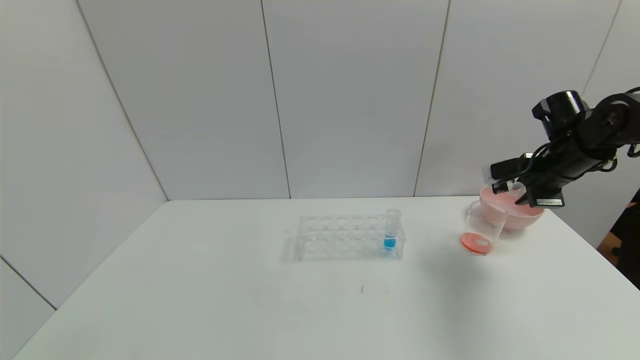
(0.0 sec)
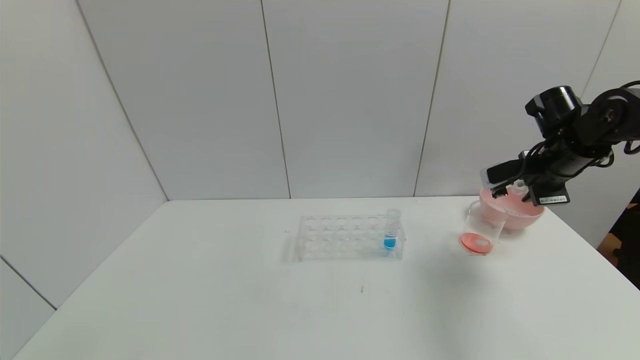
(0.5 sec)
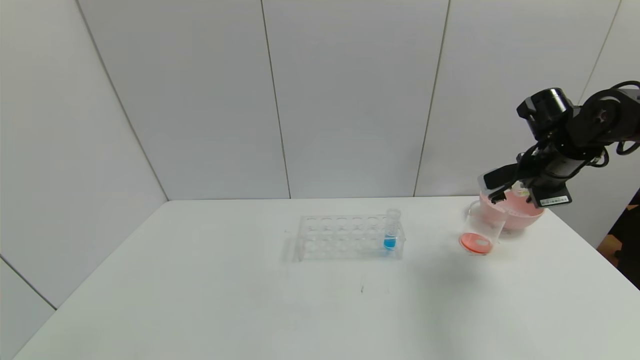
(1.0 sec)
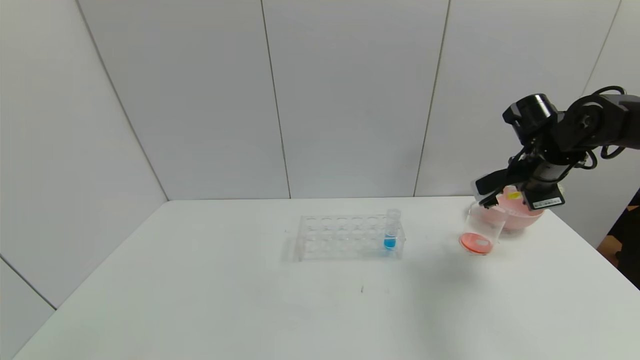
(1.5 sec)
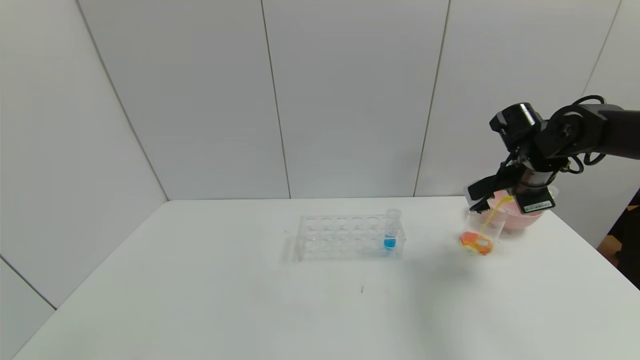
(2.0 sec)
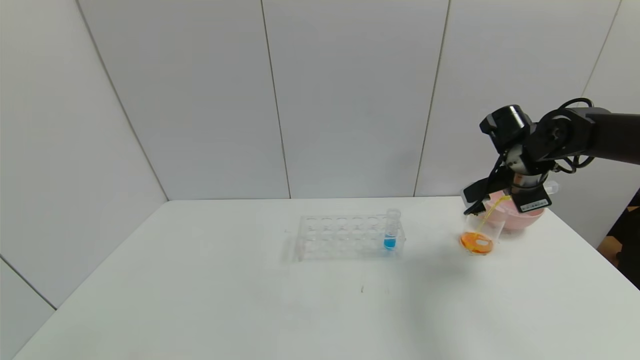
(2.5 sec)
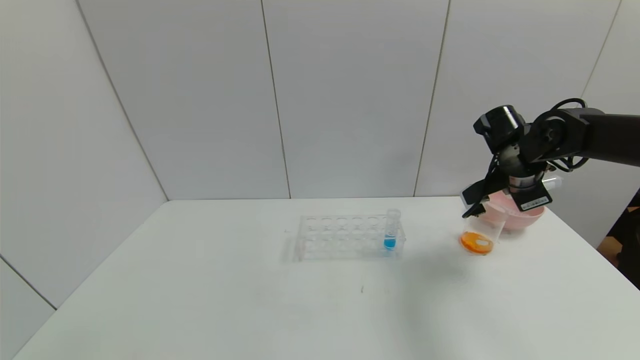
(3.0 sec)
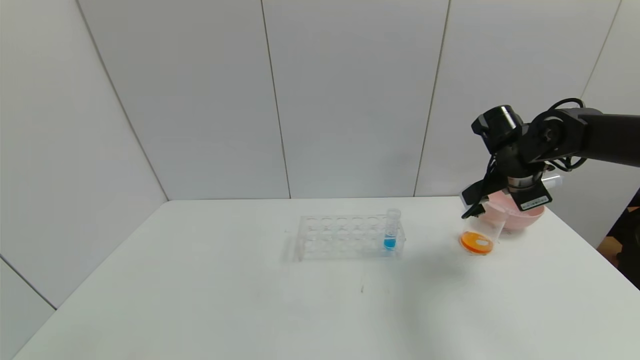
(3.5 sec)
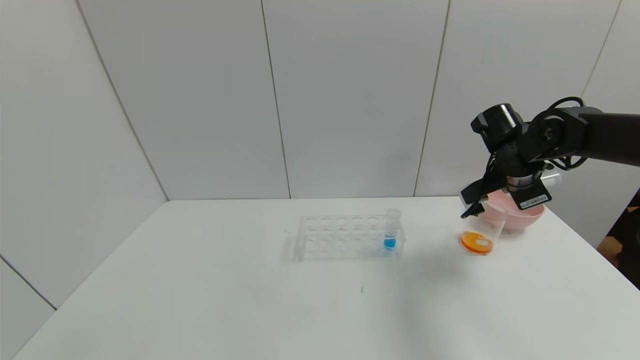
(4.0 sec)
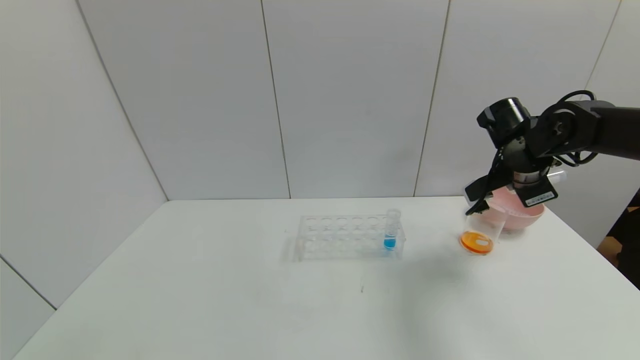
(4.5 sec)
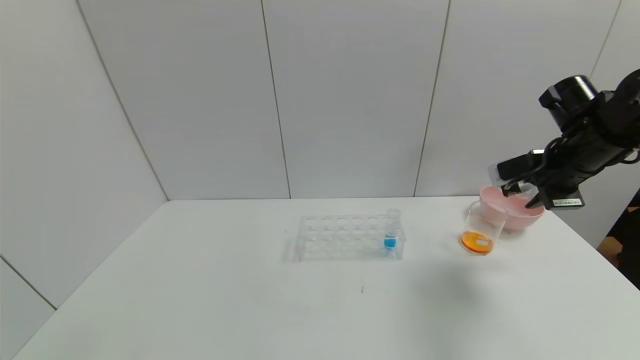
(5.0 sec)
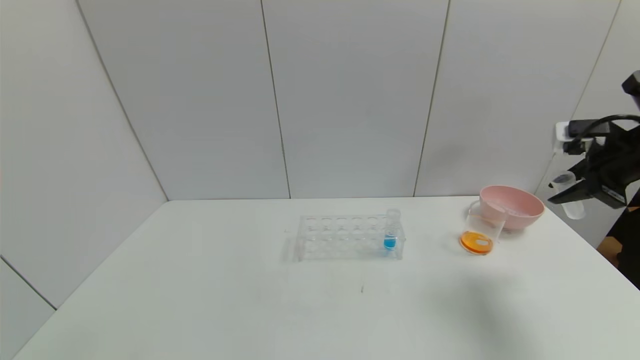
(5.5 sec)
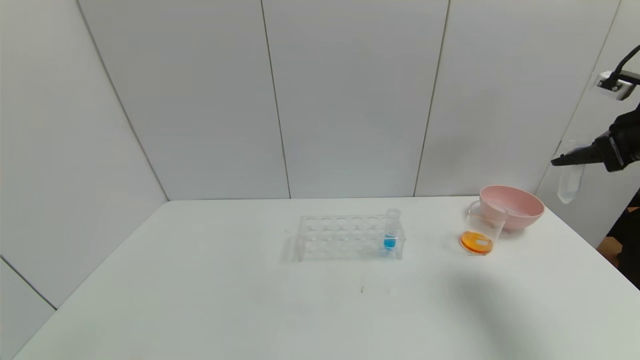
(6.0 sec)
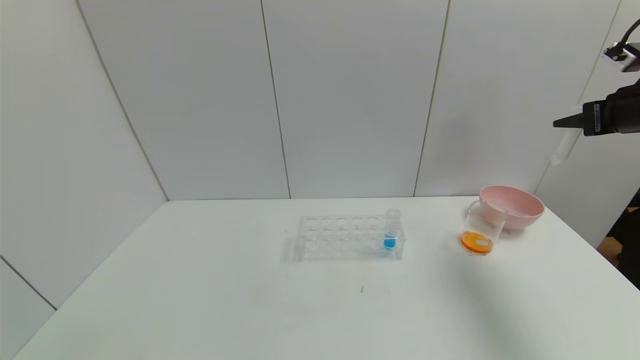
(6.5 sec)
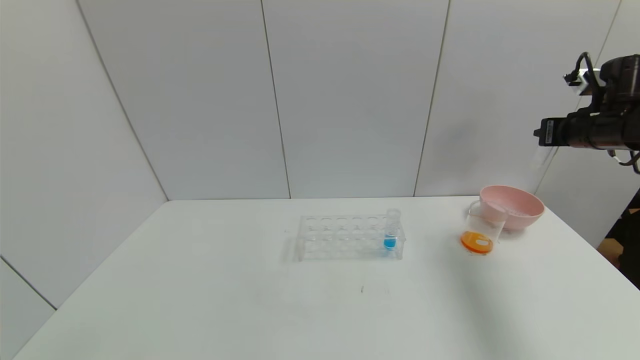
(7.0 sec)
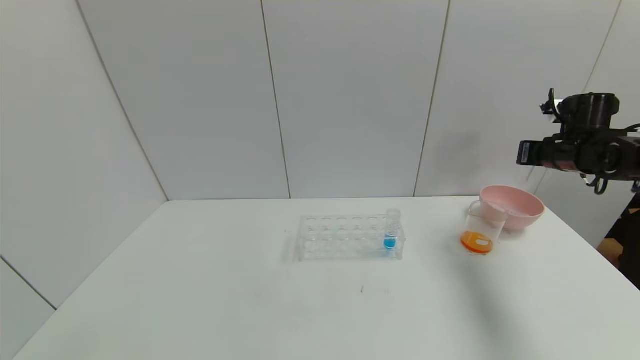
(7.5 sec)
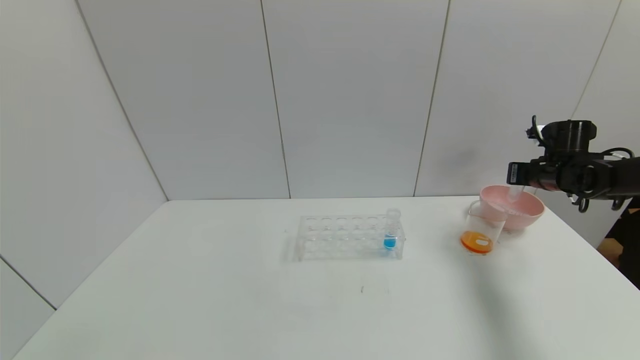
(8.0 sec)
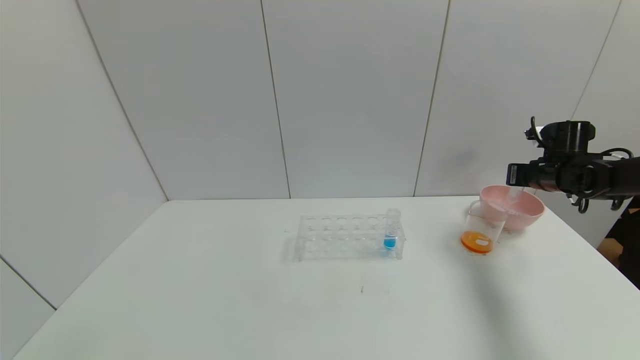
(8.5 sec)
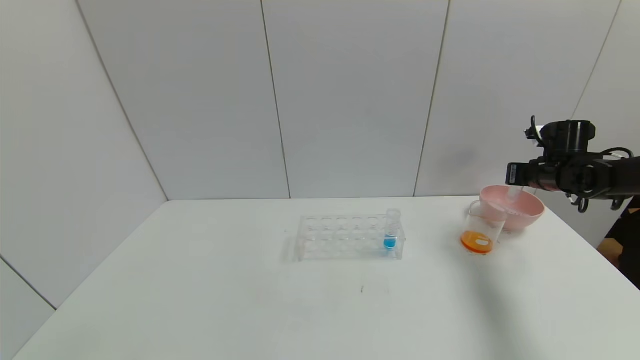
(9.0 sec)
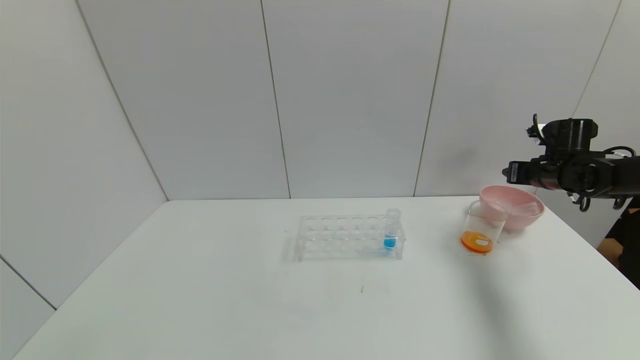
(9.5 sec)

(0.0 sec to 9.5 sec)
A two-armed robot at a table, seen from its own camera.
Task of the whole recording: pick up the test tube with yellow pigment and the test tube with red pigment by grippers and pour them into the beaker.
Step, 0.0 sec - 3.5 sec: Pour the yellow reagent into the graduated cylinder with the right gripper.
0.0 sec - 2.0 sec: The right gripper moves roughly 5 cm.
2.0 sec - 4.0 sec: There are only small adjustments of the grippers.
4.0 sec - 5.5 sec: The right gripper is displaced to the right, backward and upward by some 15 cm.
5.5 sec - 7.5 sec: The right gripper shifts some 15 cm forward and downward.
7.5 sec - 9.5 sec: The right gripper opens its fingers.

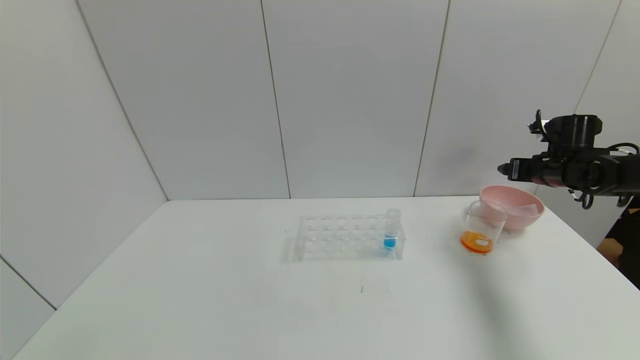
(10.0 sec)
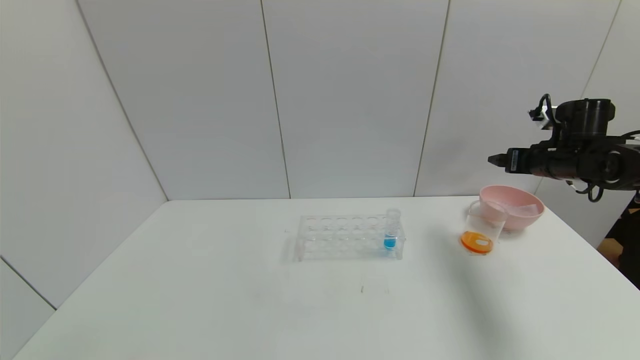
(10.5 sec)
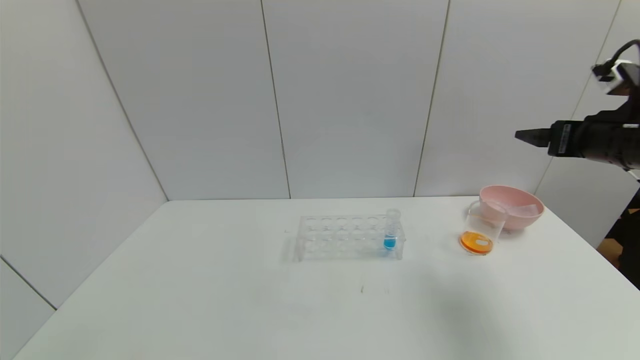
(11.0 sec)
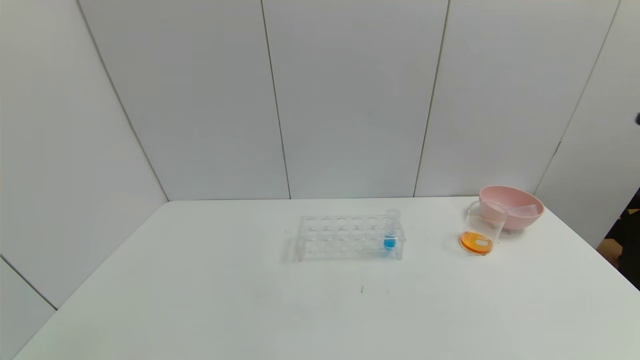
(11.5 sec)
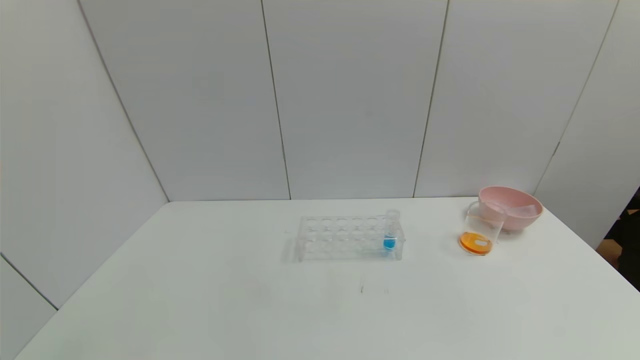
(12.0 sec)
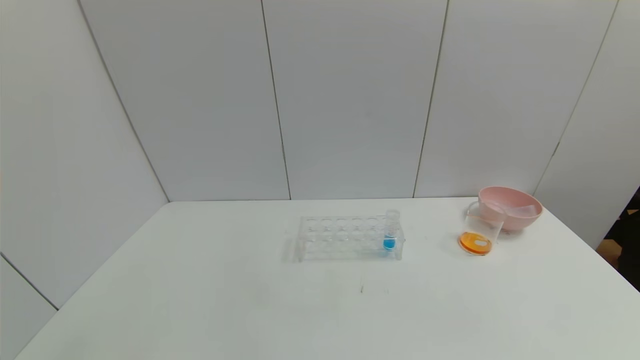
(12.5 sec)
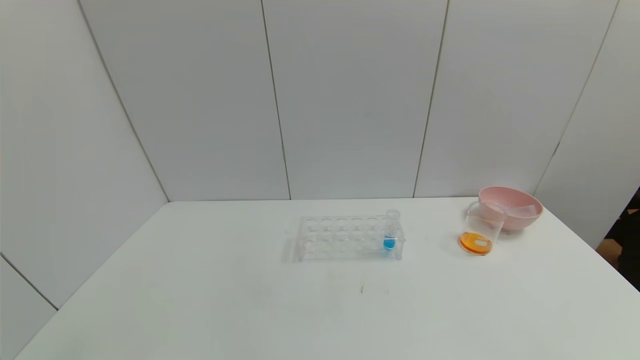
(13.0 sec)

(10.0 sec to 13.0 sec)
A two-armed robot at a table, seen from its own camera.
Task of the whole recording: pick up the test tube with yellow pigment and the test tube with red pigment by grippers and pour them into the beaker.
10.0 sec - 11.5 sec: The right gripper is displaced backward and upward by some 35 cm.
